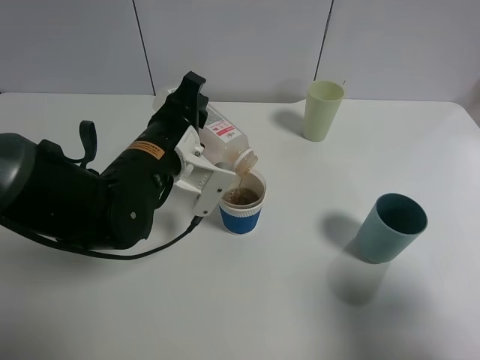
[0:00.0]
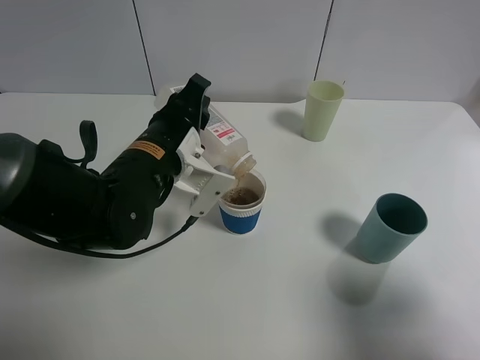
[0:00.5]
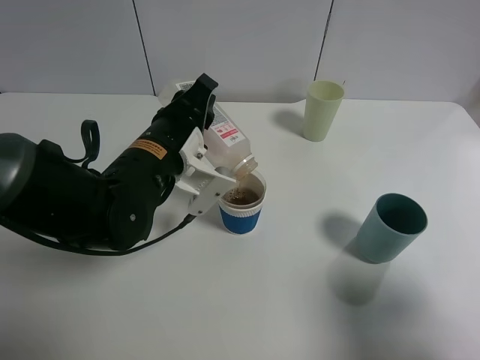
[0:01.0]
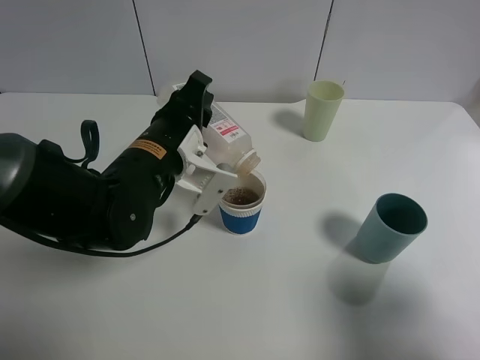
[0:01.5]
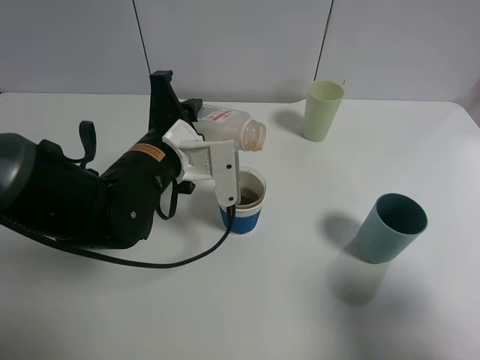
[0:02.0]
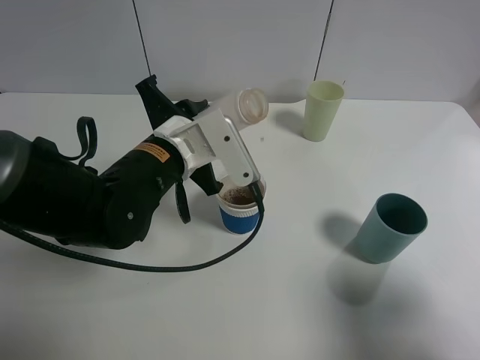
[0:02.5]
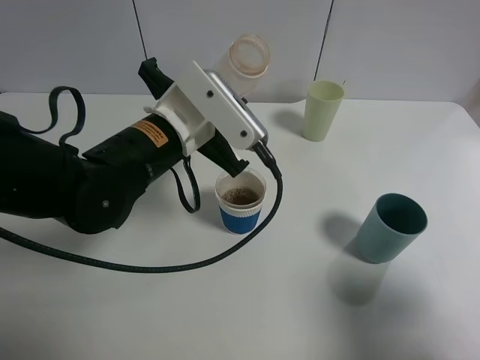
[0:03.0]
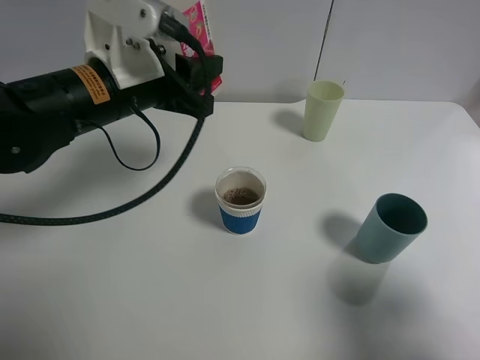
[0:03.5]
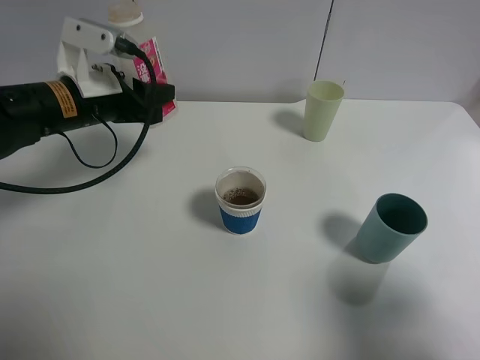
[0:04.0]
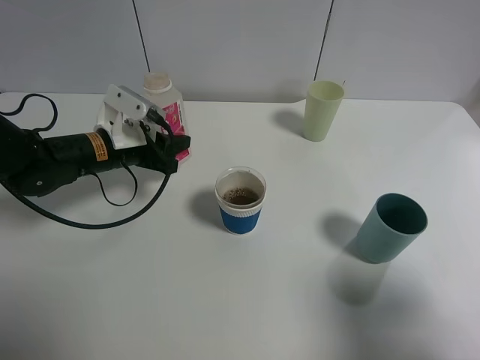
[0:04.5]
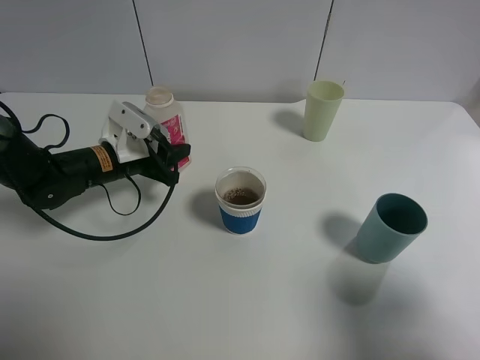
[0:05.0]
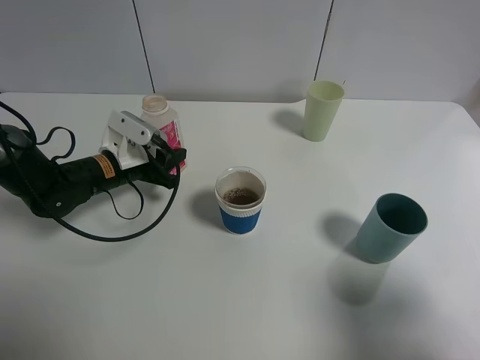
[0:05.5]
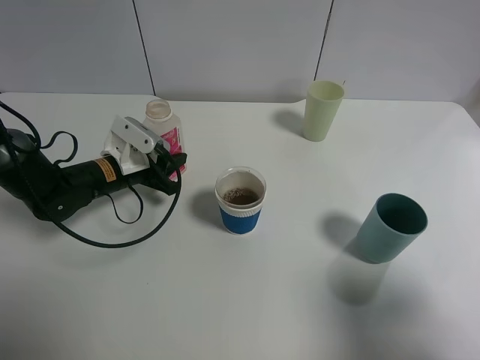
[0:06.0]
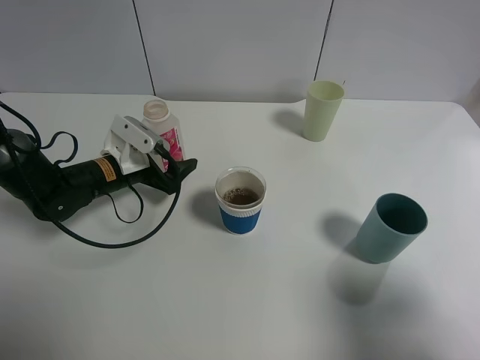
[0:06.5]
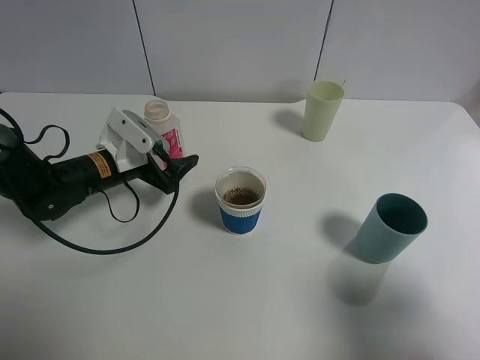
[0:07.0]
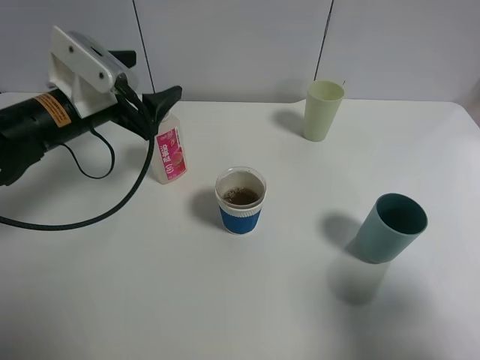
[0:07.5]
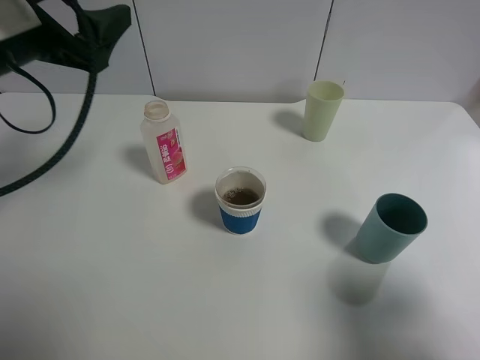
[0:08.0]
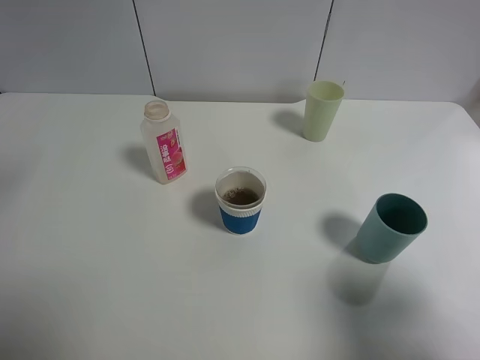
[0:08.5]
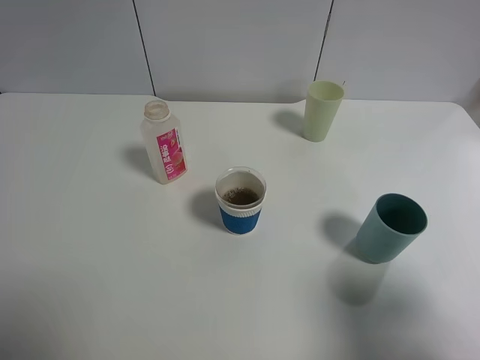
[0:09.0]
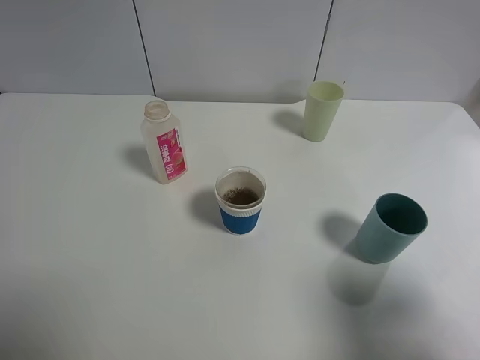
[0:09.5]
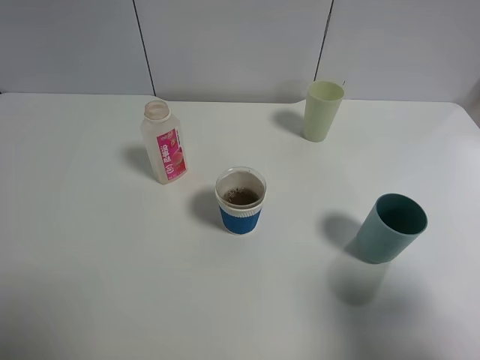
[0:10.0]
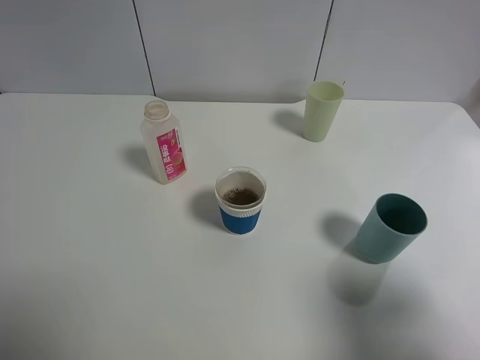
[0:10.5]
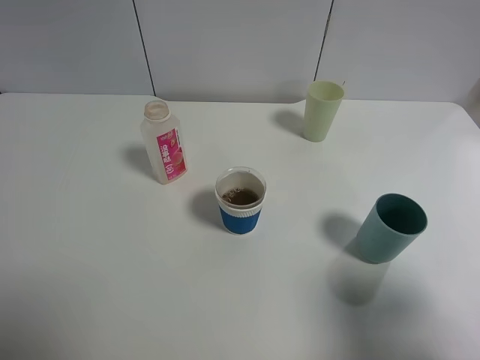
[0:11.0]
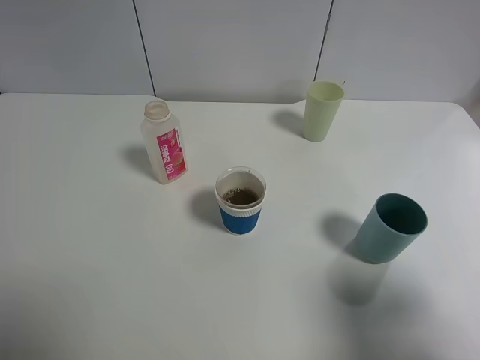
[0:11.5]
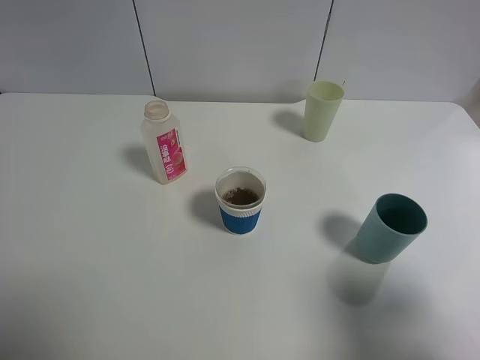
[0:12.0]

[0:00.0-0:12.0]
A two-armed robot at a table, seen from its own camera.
Task of the whole recording: use a gripper to hold the bottle of the drink and pour it into a random cup.
Step, 0:02.0 to 0:06.5: Place the cranberry juice bottle on the table with the left gripper.
0:02.0 to 0:04.0: The left gripper heads to the left and forward, covering approximately 10 cm.
0:04.0 to 0:06.0: The left gripper is displaced downward by approximately 15 cm.
0:06.0 to 0:08.0: The left gripper shifts approximately 25 cm upward, and opens its fingers.
0:08.0 to 0:10.0: The left gripper heads backward, covering approximately 25 cm.

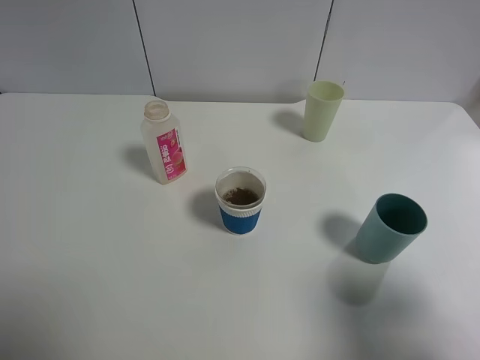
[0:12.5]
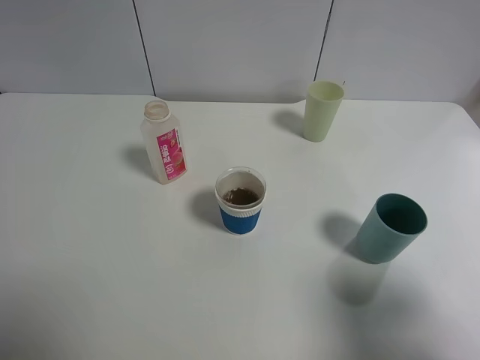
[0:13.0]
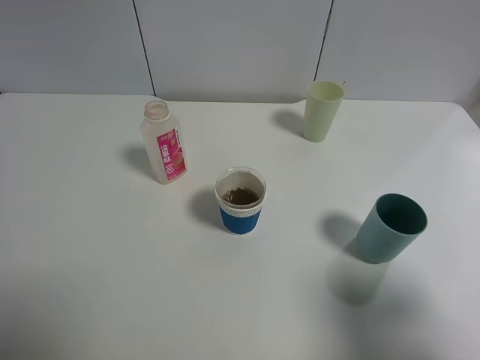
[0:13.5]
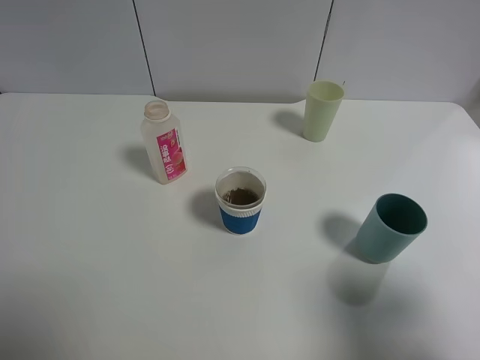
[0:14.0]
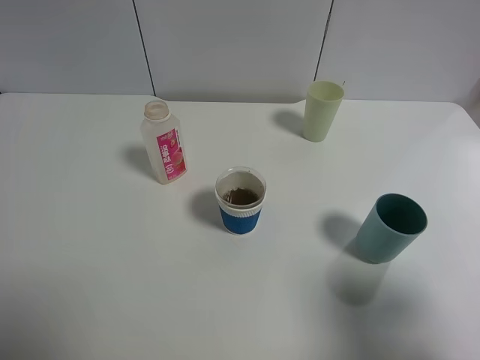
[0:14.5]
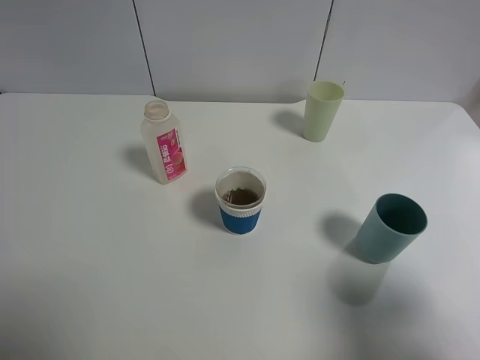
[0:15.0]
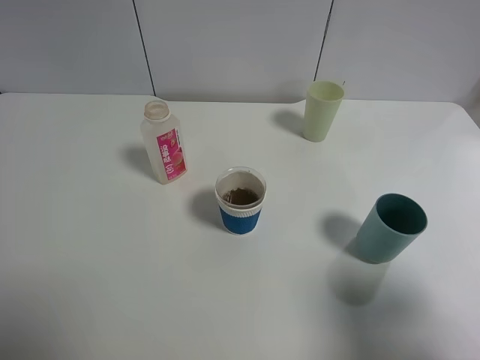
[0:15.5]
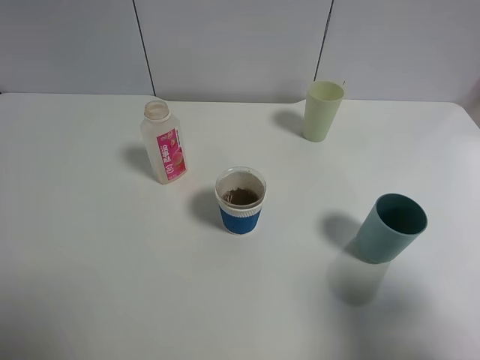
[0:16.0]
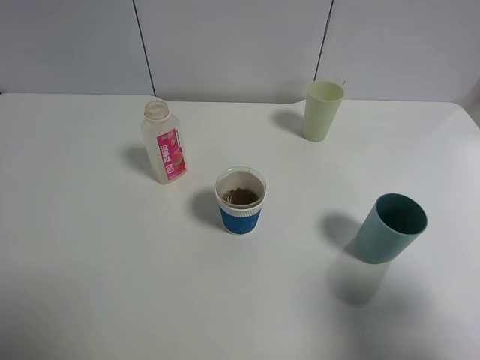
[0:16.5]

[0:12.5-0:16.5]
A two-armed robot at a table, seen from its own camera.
Task of the whole recording: use a gripper to hold the bottle of the drink and pour it into a random cup.
0:12.5 to 0:16.5: Both grippers stay put.

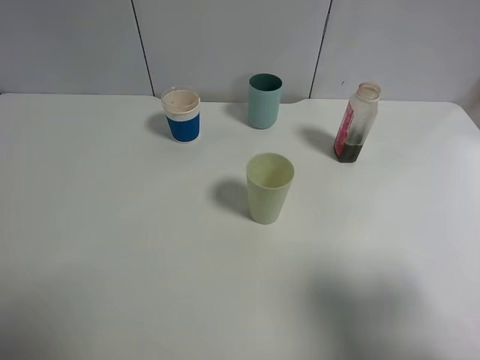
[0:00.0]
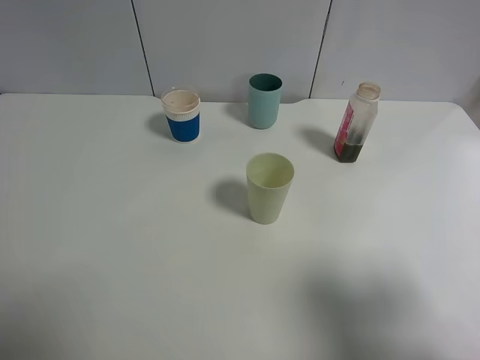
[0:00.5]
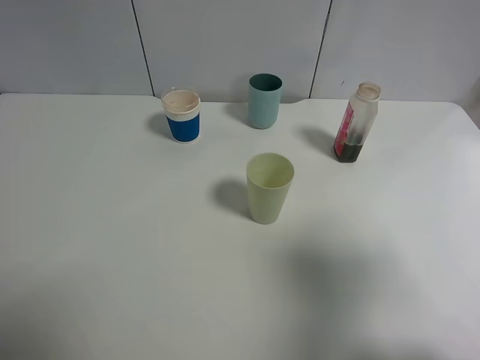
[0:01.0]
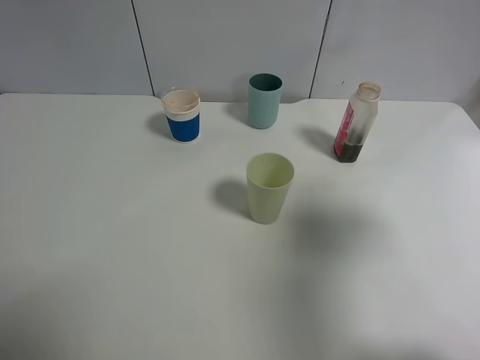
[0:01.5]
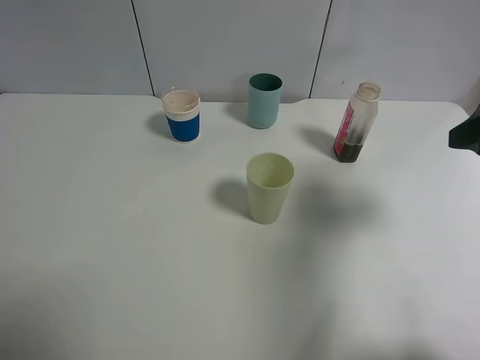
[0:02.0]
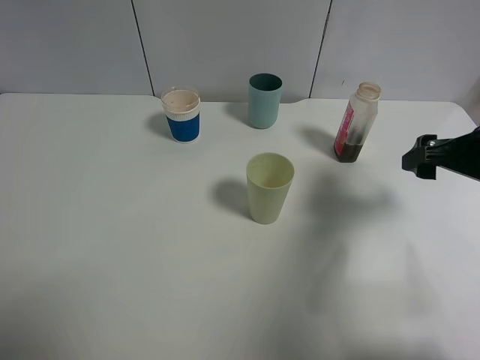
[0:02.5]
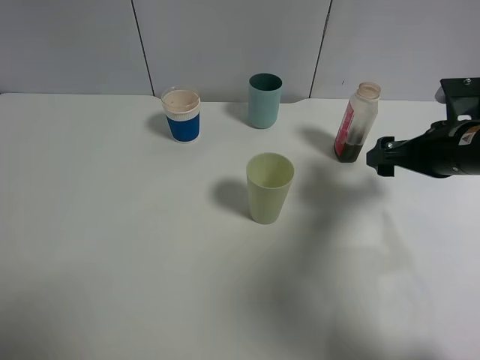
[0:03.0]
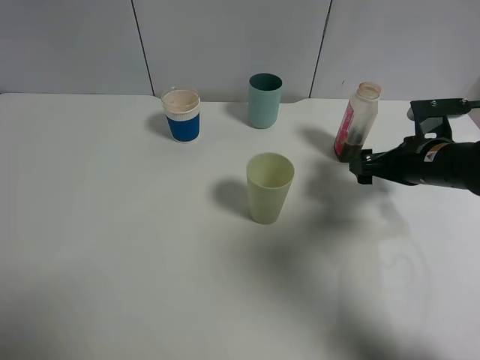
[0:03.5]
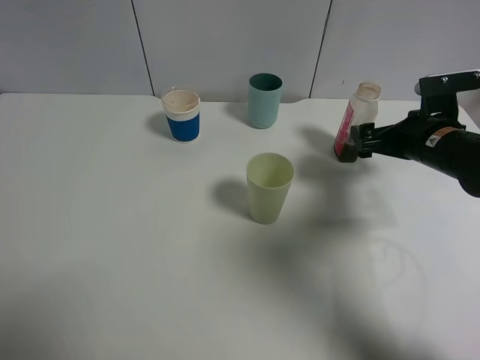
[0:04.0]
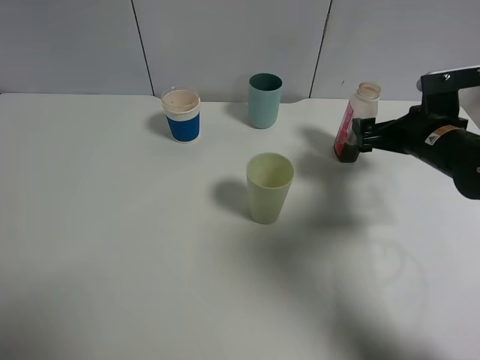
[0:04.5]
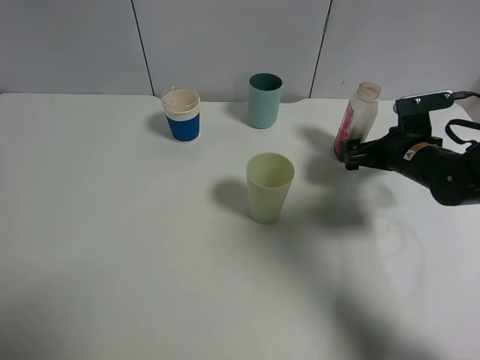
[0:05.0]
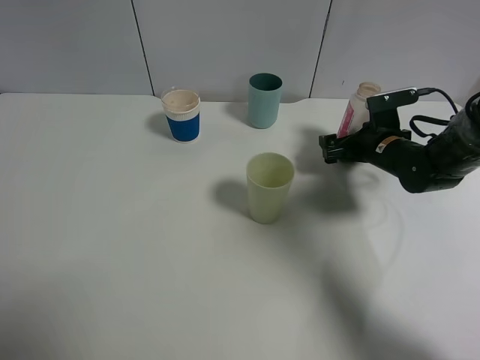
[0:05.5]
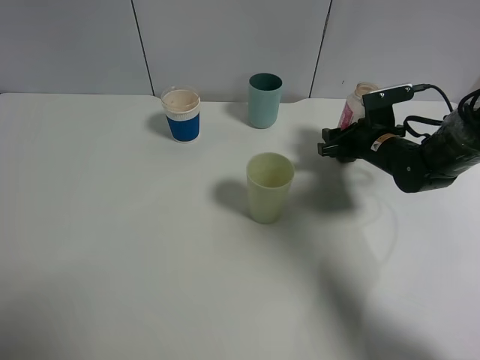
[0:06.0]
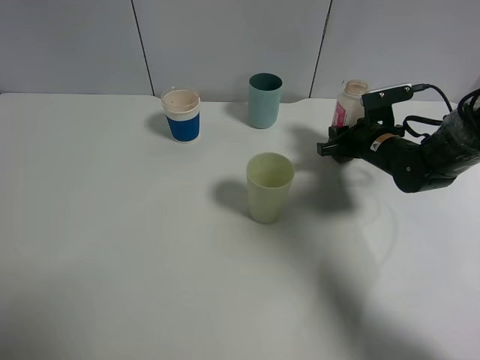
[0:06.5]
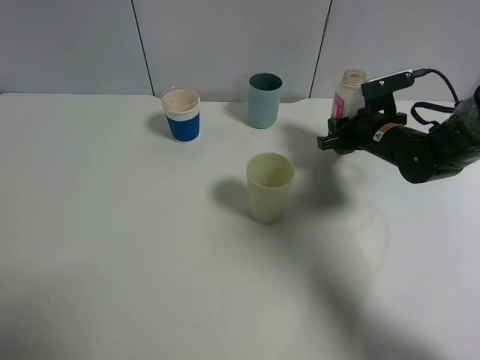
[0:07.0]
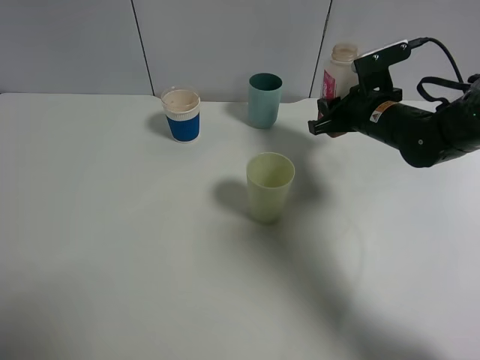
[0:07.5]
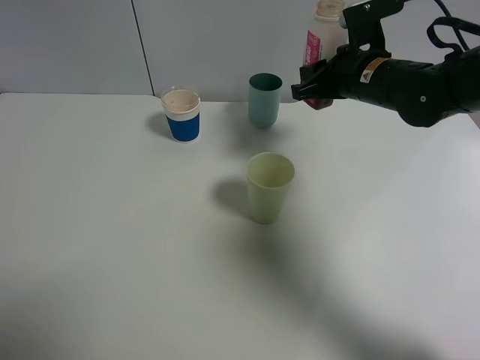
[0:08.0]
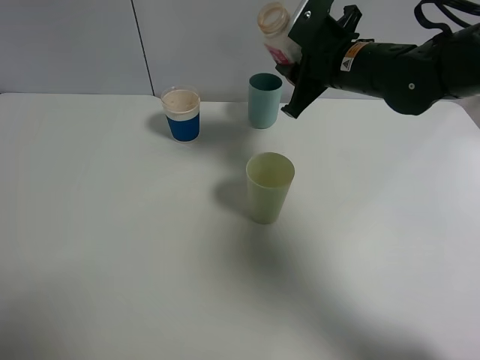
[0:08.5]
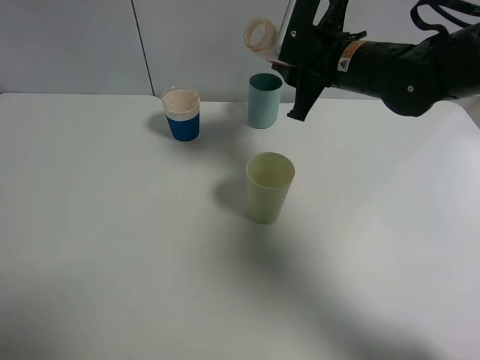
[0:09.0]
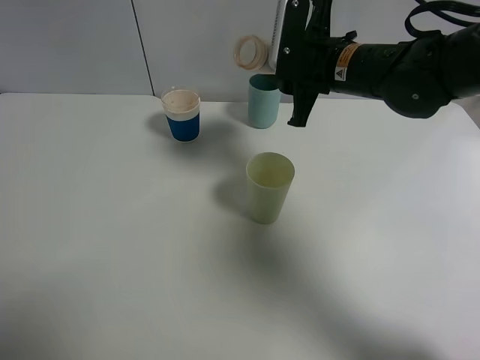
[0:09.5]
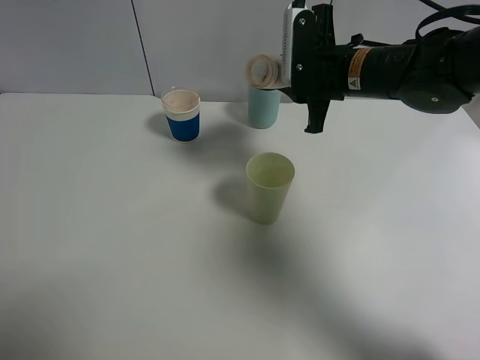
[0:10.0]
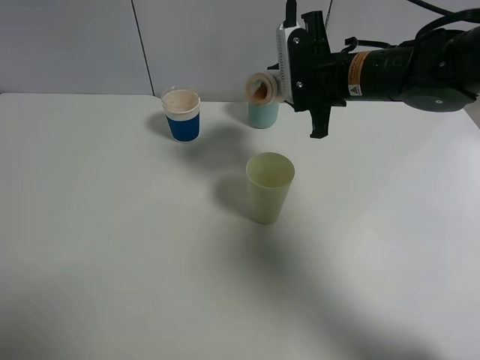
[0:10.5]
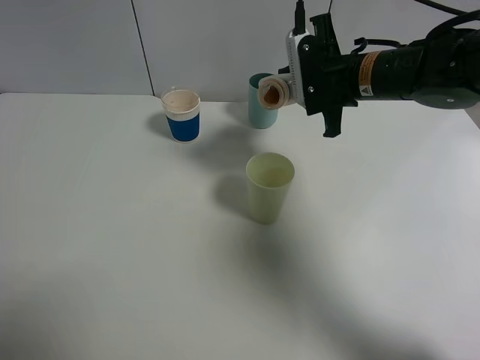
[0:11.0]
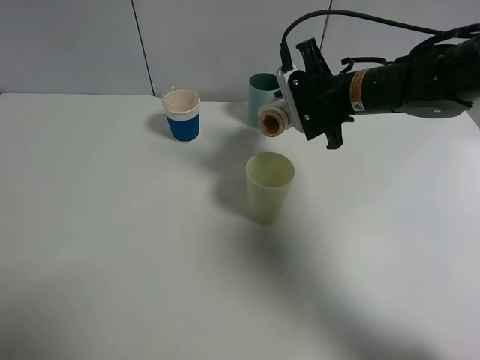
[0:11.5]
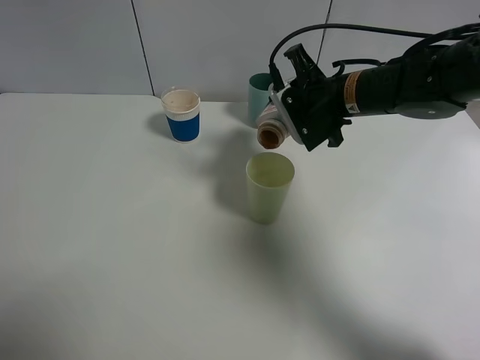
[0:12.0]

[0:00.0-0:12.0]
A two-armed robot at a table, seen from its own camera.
Task of the whole recording: use a gripper to hold the bottle of the drink and pour it into a random cup.
Step, 0:00.0 to 0:06.0: Grasp the cranberry juice bottle with the right gripper.
0:00.0 to 0:02.0: The right gripper is displaced forward by about 20 cm.
0:02.0 to 0:04.0: The right gripper shifts roughly 20 cm downward and forward.
0:04.0 to 0:06.0: The right gripper travels forward and downward by about 10 cm, and closes up.
0:06.0 to 0:08.0: The right gripper travels upward and to the left by roughly 15 cm.
